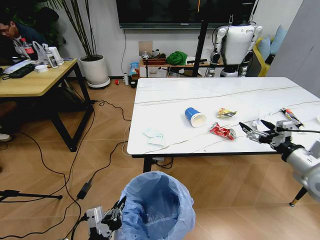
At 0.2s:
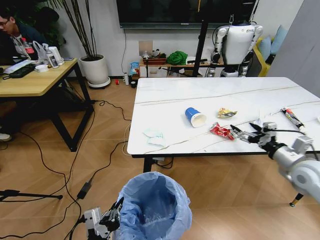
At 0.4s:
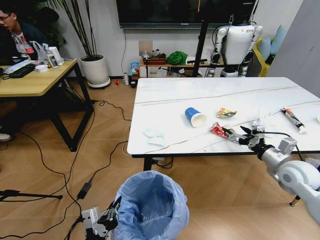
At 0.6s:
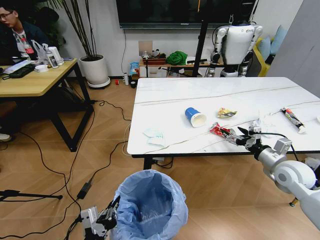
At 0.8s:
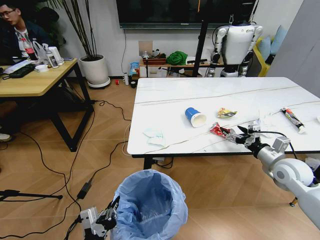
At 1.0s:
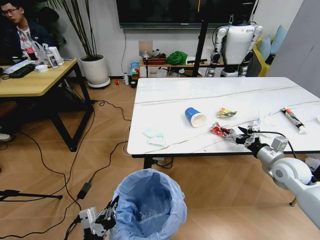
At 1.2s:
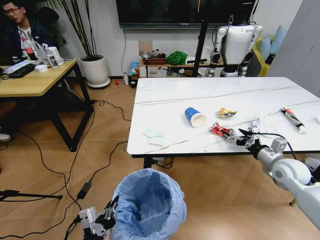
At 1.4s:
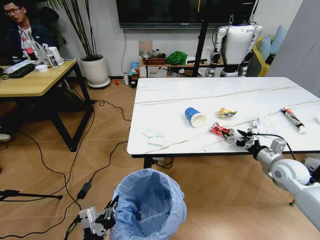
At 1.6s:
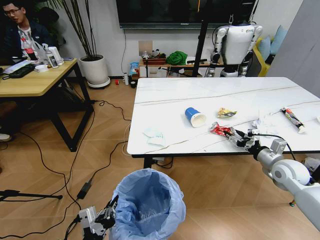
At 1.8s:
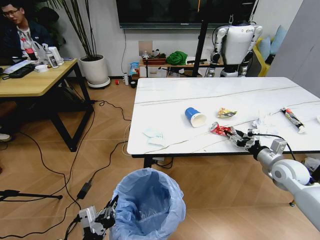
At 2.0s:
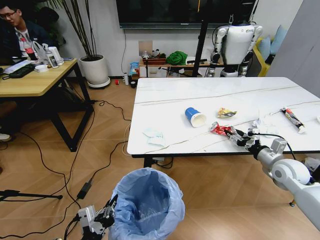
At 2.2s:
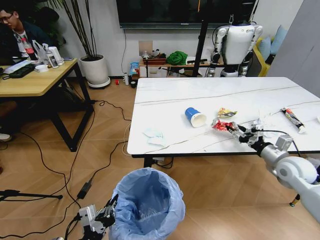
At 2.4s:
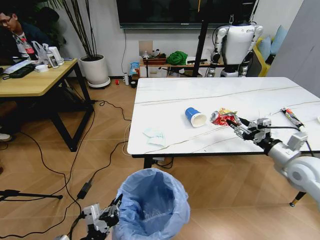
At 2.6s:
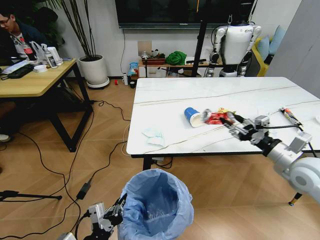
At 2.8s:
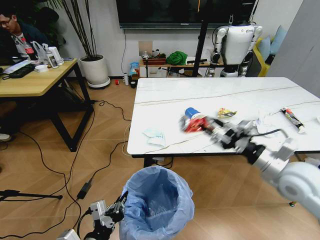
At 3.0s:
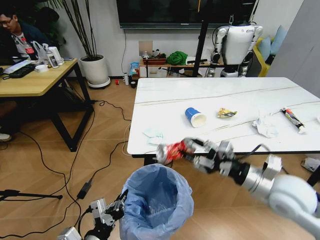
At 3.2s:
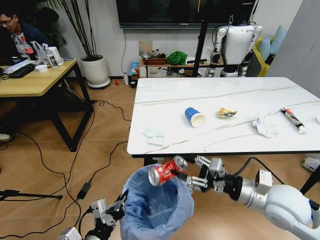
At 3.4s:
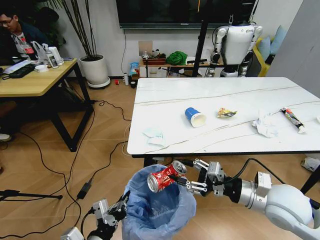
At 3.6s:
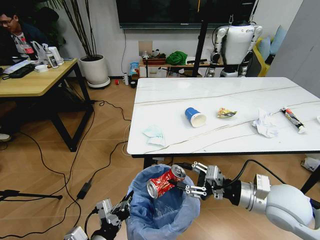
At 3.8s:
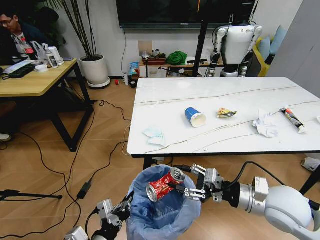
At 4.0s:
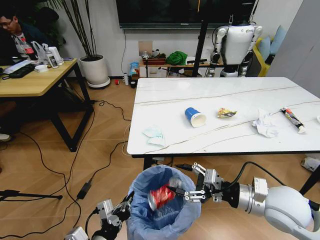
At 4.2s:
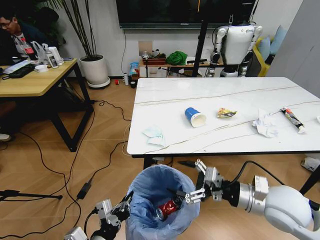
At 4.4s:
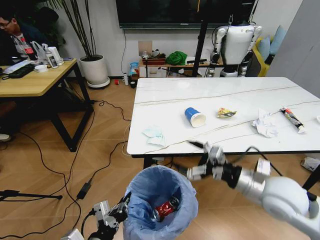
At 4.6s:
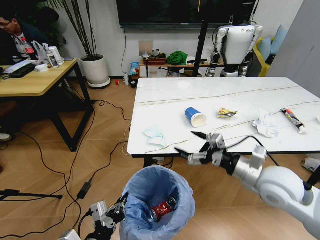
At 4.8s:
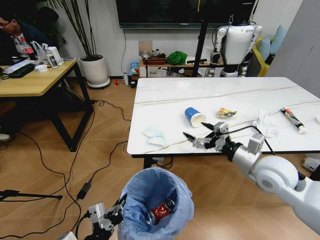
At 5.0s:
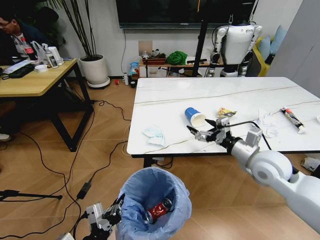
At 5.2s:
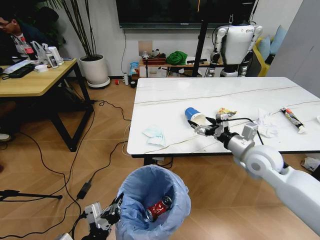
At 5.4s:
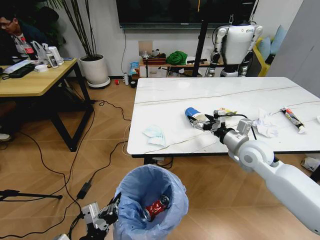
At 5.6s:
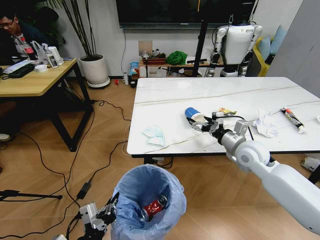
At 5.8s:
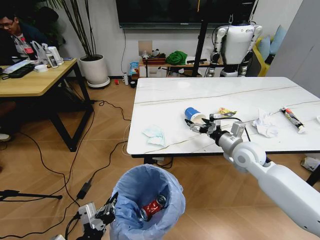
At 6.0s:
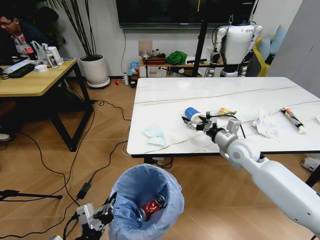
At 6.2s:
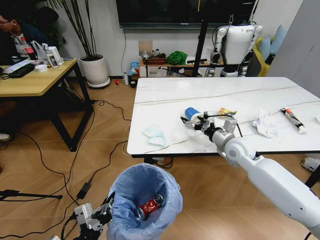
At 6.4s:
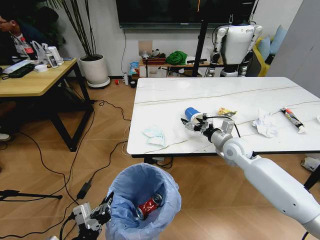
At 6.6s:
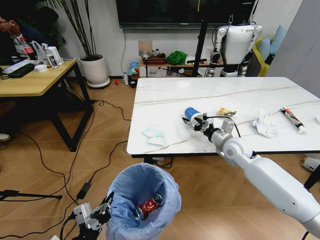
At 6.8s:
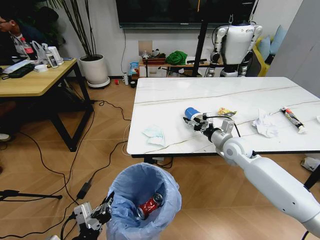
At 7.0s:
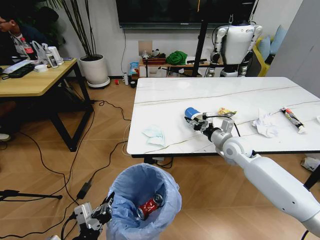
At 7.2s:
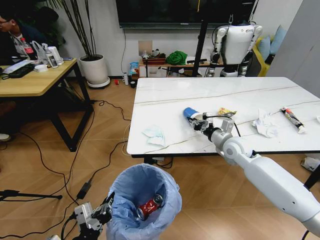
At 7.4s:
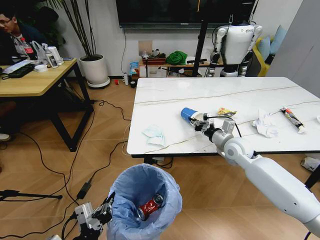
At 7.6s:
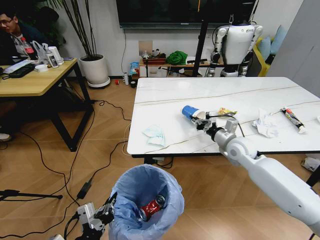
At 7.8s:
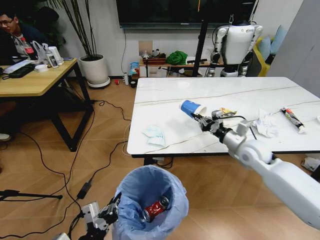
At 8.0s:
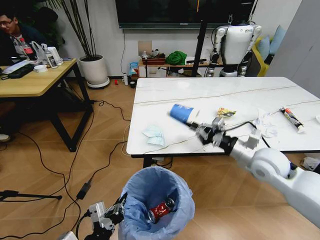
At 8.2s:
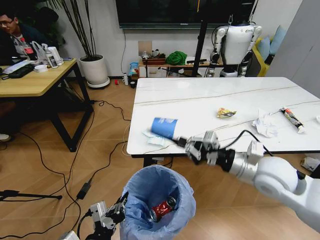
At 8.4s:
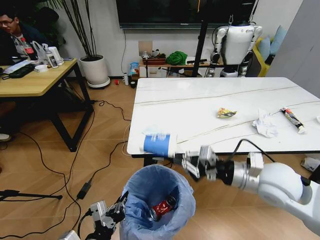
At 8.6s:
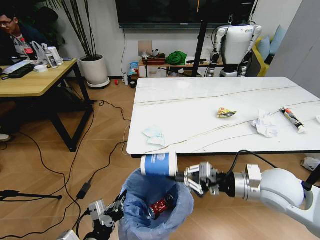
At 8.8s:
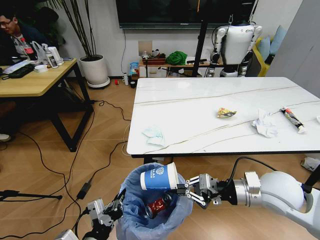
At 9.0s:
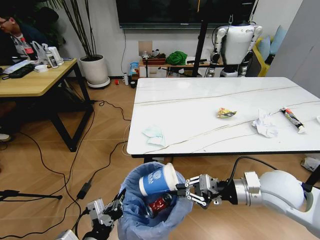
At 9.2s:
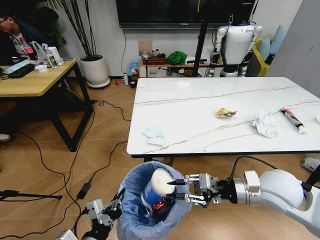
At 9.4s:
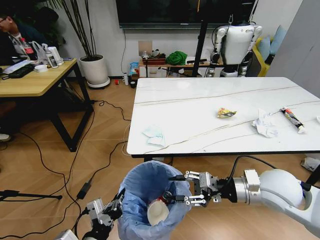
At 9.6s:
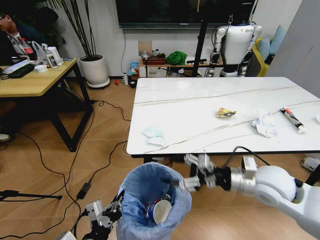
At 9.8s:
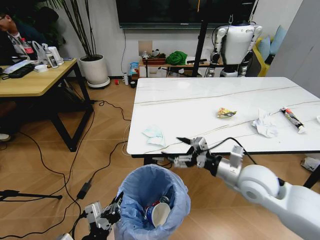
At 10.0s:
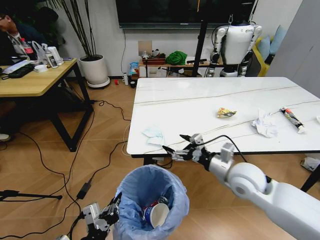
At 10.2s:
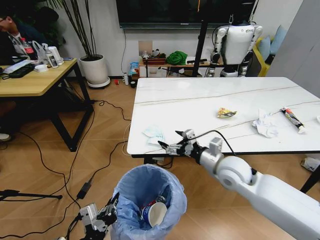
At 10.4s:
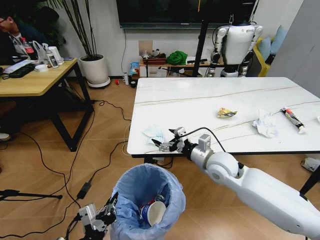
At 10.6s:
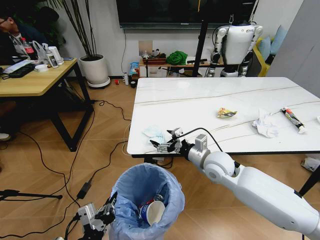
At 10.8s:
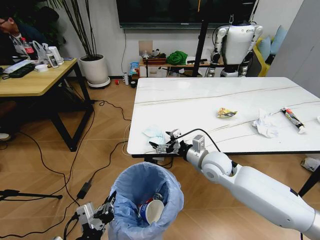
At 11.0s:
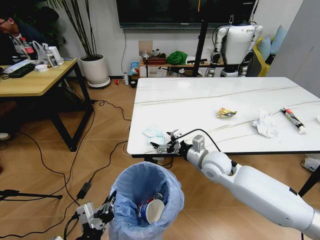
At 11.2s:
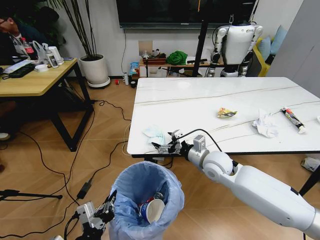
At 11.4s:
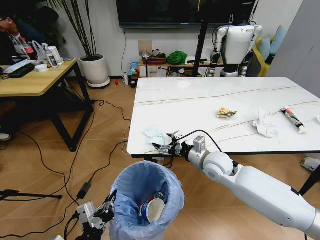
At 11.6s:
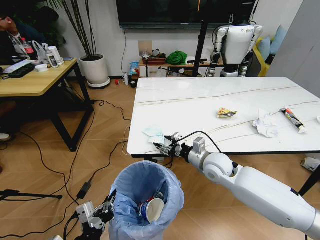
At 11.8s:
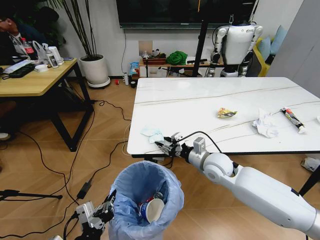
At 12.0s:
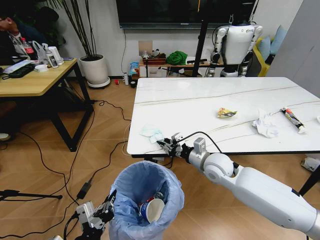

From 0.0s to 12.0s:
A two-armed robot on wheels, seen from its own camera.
Task of the whole recording: Pick up the trash bin and place the trash from the table into it.
From 0.0s to 1.6s: The right gripper travels downward and forward by about 15 cm.
From 1.6s to 3.0s: The right gripper moves to the left, backward and upward, some 20 cm.
From 3.0s to 4.4s: The right gripper opens.
From 4.4s to 6.0s: The right gripper is displaced forward by roughly 15 cm.
From 6.0s to 7.6s: The right gripper closes up.
From 7.6s to 9.0s: The right gripper travels backward by some 15 cm.
From 9.0s to 10.4s: The right gripper is displaced forward and to the left by approximately 15 cm, and opens its fingers.
From 10.4s to 12.0s: The right gripper closes.

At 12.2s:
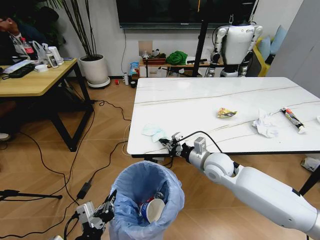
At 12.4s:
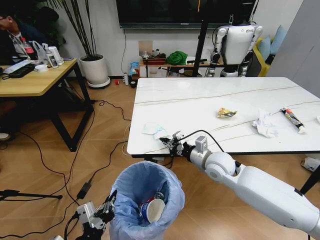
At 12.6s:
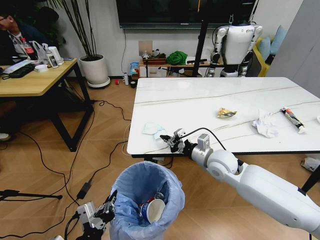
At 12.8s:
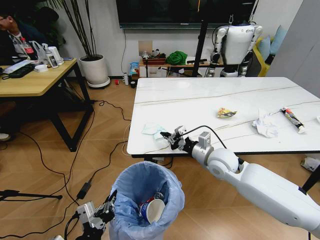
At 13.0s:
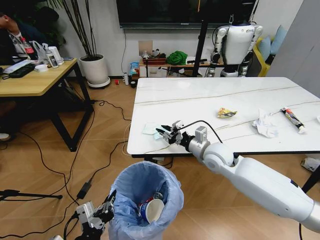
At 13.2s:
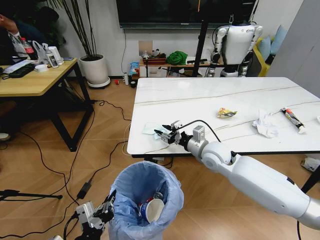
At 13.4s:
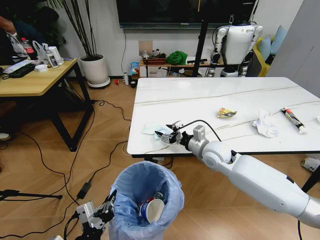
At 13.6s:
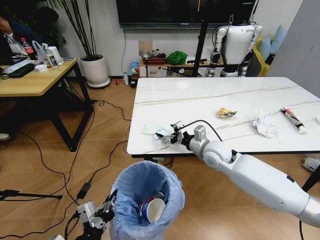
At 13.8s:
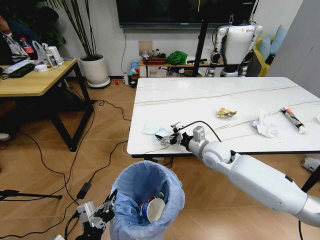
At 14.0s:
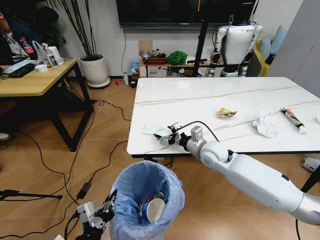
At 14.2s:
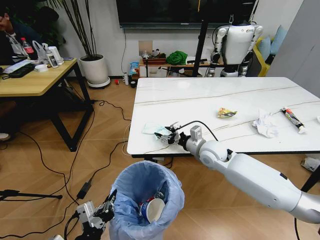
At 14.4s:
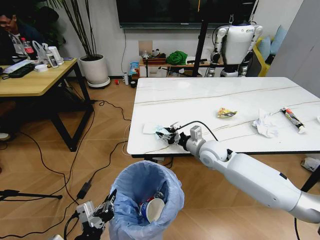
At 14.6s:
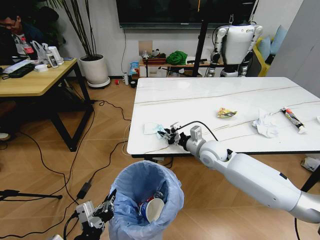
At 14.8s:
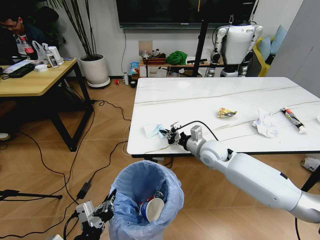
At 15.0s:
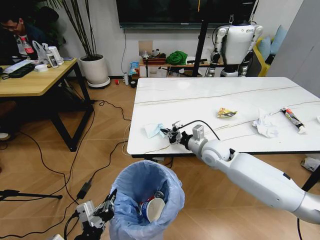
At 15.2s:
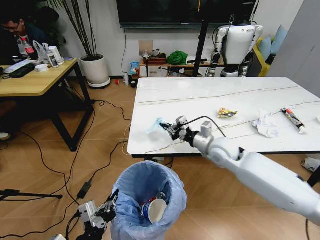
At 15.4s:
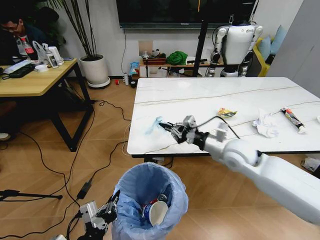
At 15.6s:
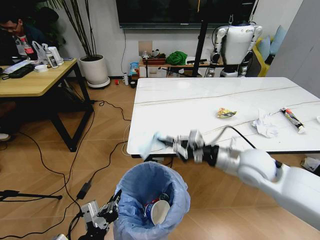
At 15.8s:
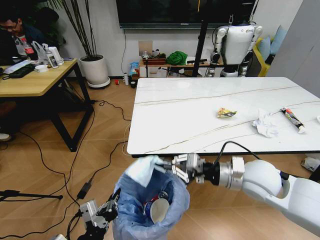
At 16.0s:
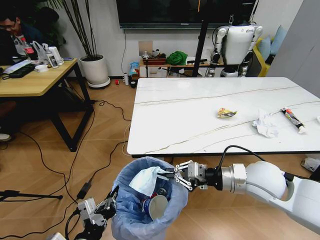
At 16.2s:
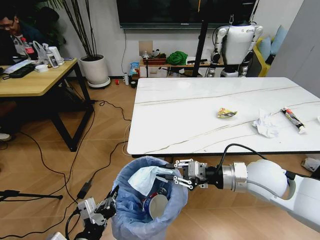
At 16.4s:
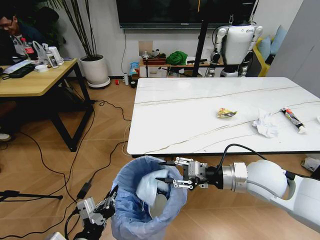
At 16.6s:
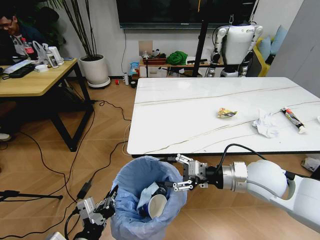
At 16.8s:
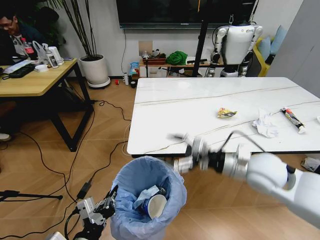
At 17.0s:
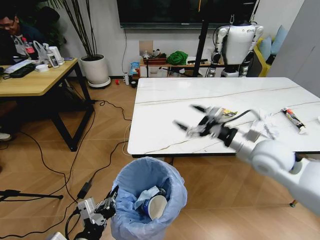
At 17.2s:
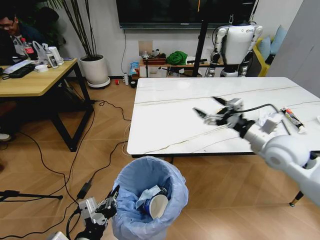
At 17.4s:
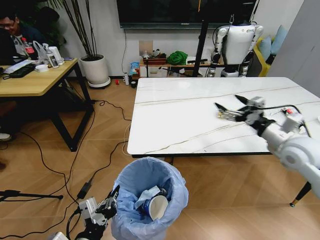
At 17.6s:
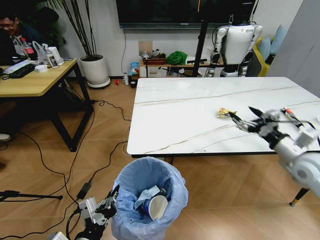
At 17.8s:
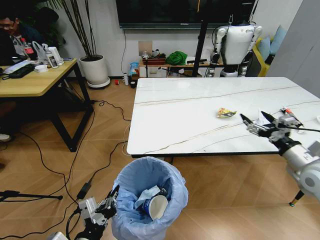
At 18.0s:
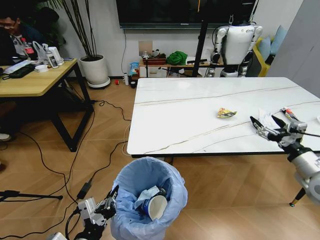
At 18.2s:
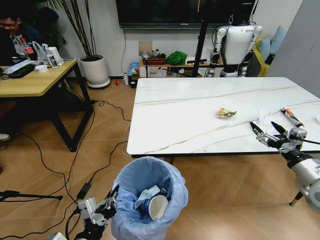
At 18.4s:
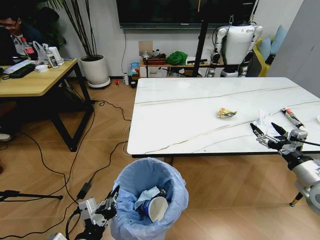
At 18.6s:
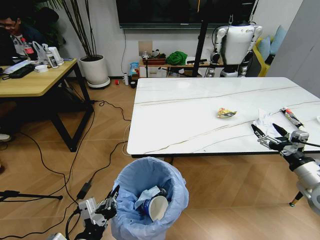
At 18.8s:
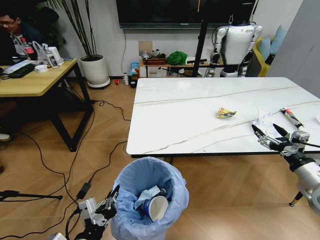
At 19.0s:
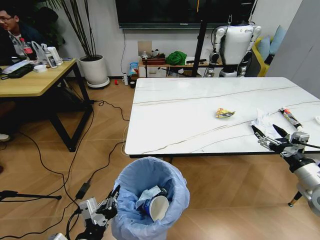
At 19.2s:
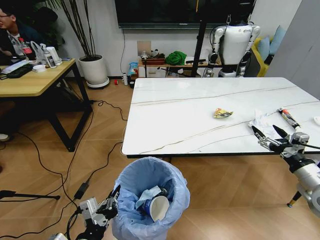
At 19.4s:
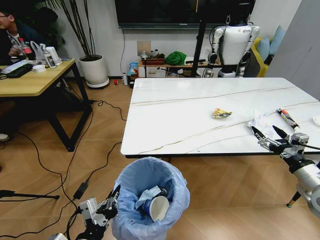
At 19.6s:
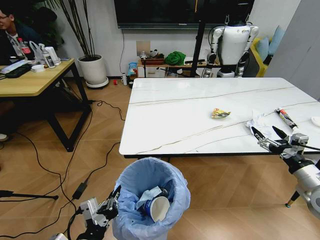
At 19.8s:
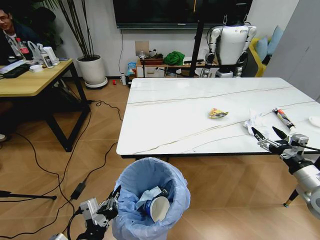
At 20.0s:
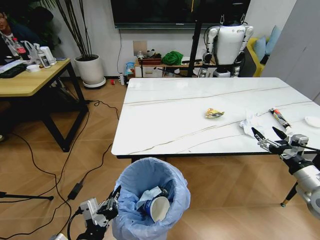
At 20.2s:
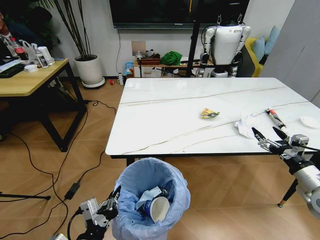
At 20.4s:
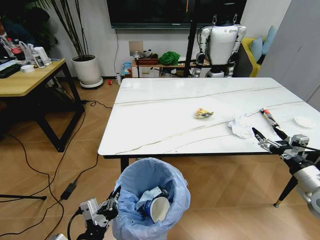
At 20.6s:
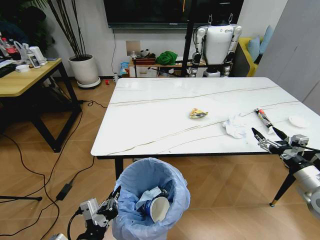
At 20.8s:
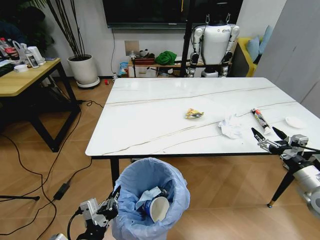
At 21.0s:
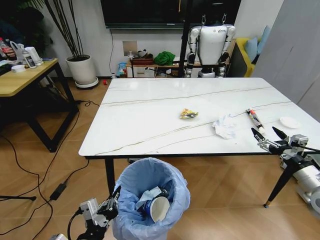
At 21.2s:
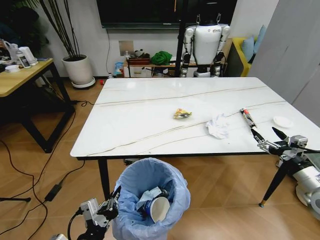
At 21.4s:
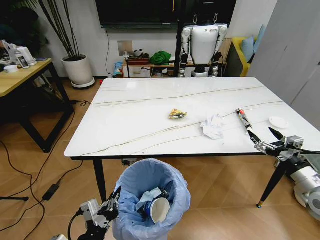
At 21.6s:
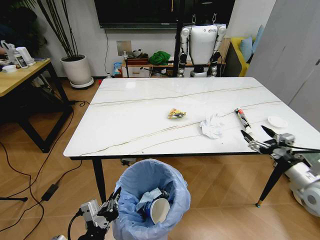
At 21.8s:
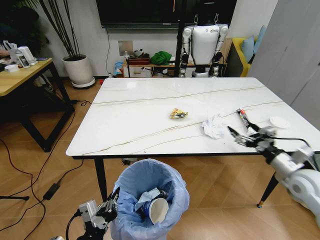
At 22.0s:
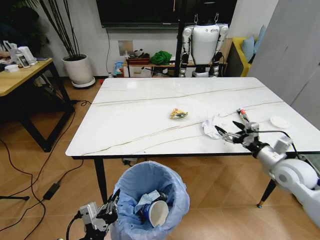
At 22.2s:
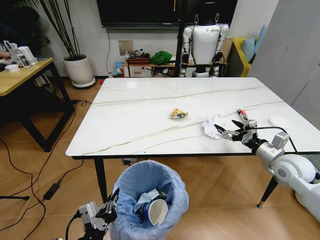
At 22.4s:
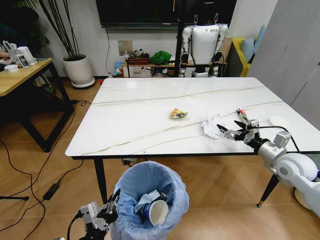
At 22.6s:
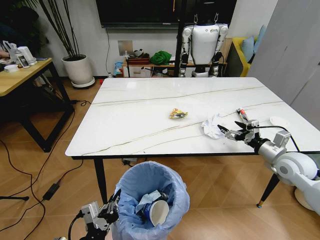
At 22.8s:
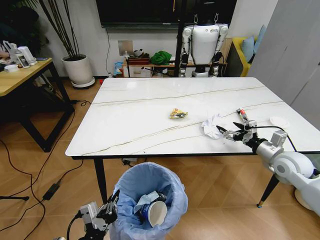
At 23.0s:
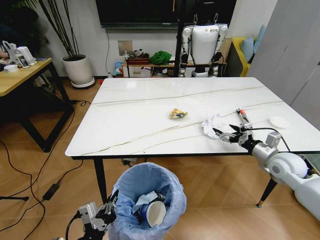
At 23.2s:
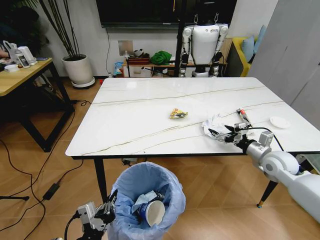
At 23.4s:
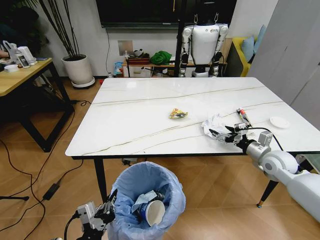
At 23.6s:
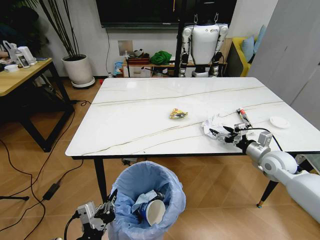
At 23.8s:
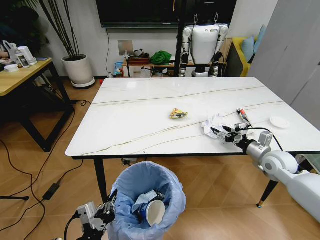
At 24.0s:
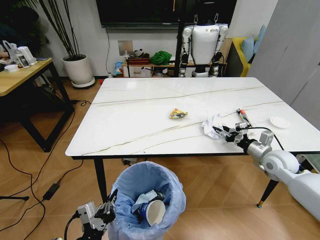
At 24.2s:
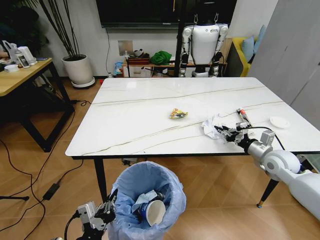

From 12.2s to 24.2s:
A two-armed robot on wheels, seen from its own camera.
Task of the whole recording: Pick up the trash bin and place the trash from the table into it.
From 12.2s to 13.8s: The right gripper opens.
From 13.8s to 15.2s: The right gripper closes up.
From 15.2s to 16.6s: The right gripper is displaced backward by about 10 cm, and opens.
From 16.6s to 18.2s: The right gripper shifts some 20 cm to the right, and opens its fingers.
From 21.2s to 22.6s: The right gripper shifts about 10 cm forward.
From 22.6s to 24.2s: The right gripper closes its fingers.
